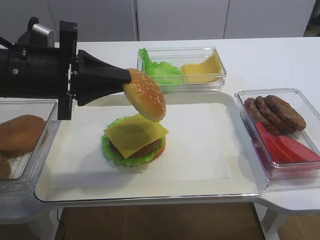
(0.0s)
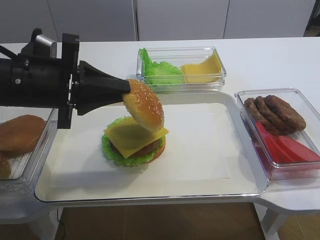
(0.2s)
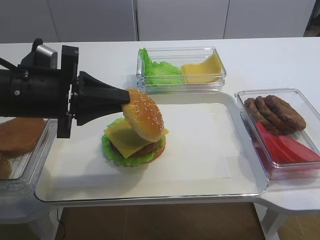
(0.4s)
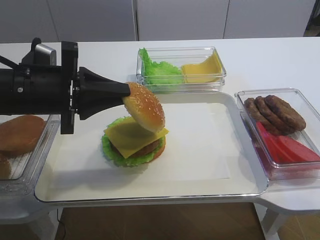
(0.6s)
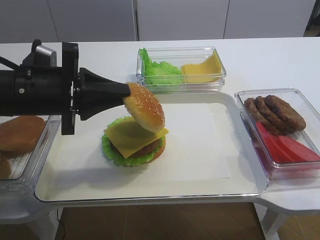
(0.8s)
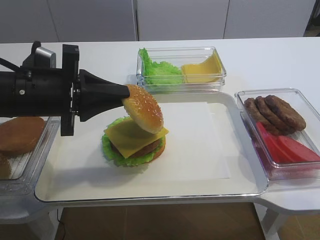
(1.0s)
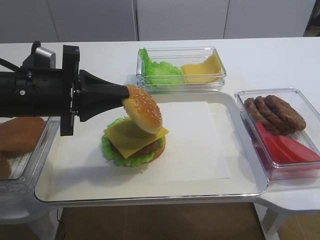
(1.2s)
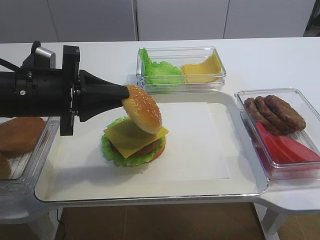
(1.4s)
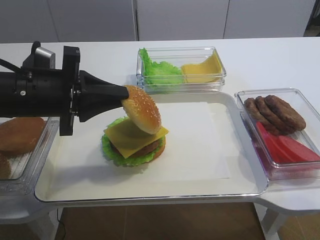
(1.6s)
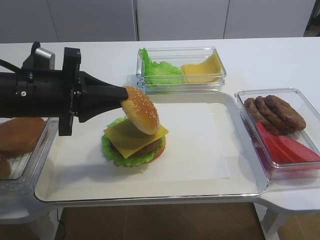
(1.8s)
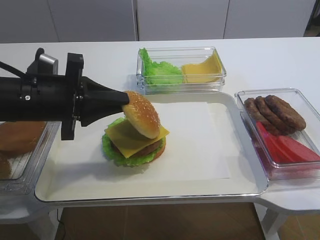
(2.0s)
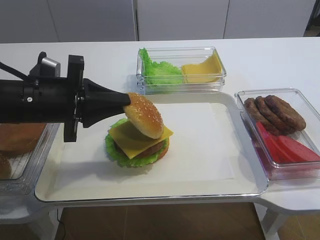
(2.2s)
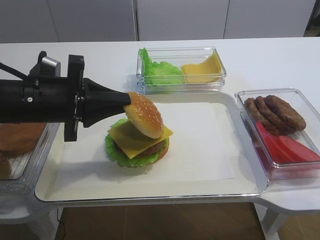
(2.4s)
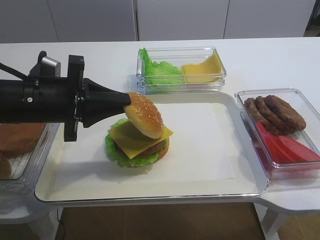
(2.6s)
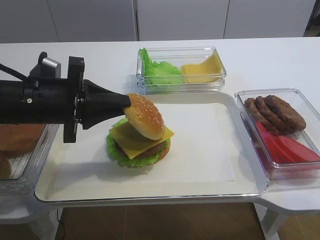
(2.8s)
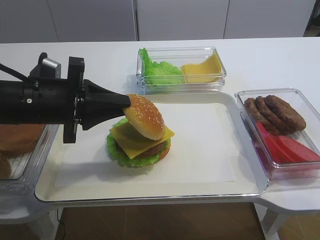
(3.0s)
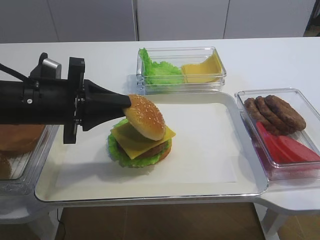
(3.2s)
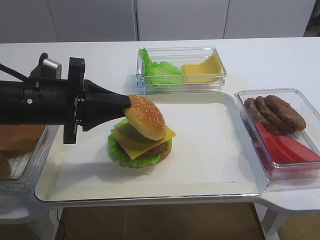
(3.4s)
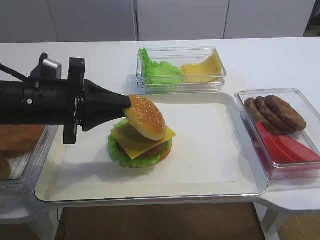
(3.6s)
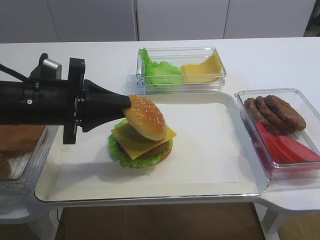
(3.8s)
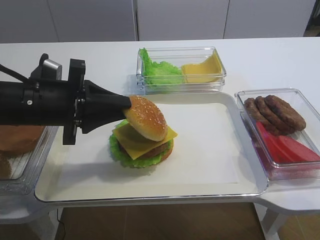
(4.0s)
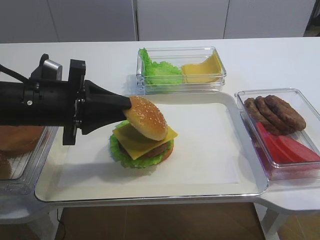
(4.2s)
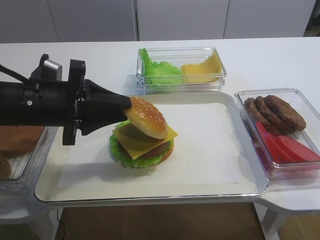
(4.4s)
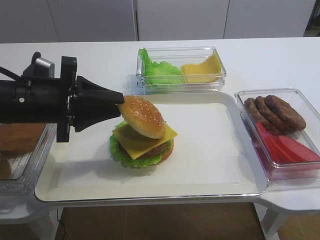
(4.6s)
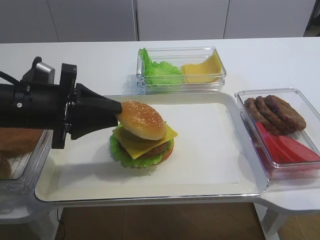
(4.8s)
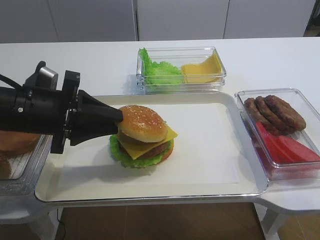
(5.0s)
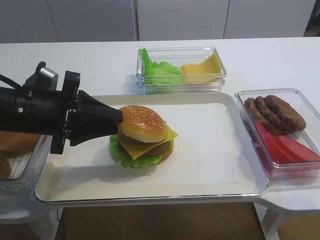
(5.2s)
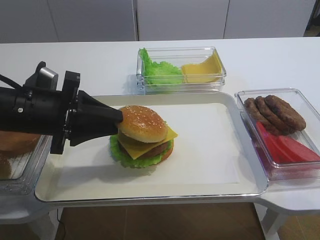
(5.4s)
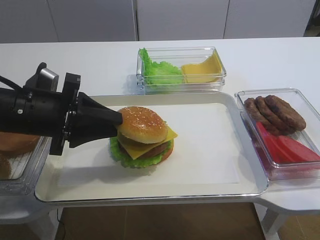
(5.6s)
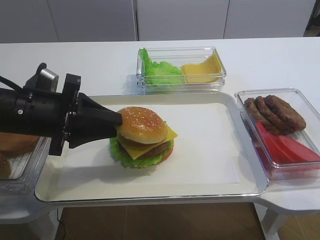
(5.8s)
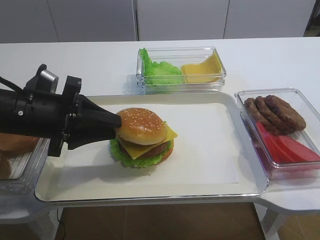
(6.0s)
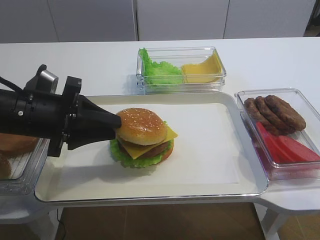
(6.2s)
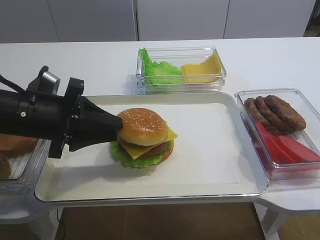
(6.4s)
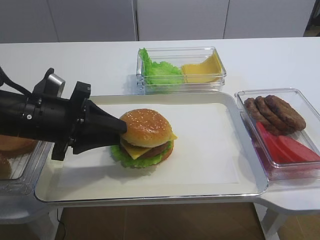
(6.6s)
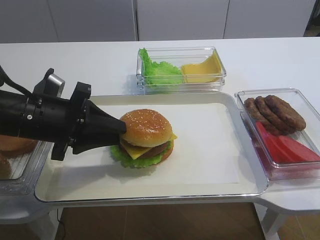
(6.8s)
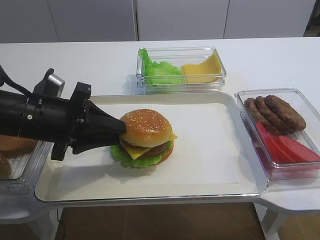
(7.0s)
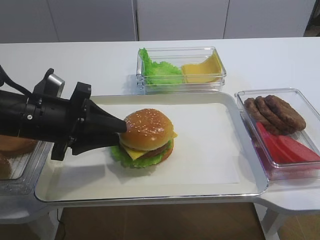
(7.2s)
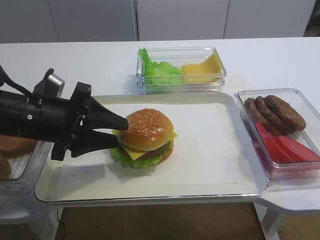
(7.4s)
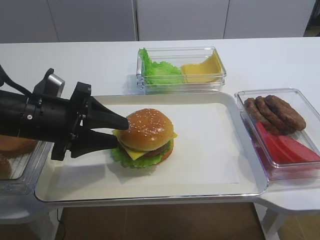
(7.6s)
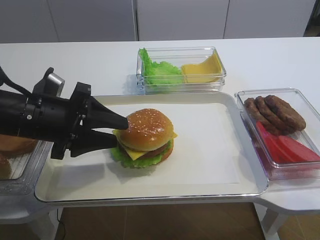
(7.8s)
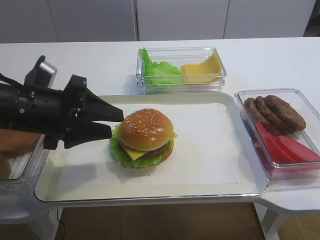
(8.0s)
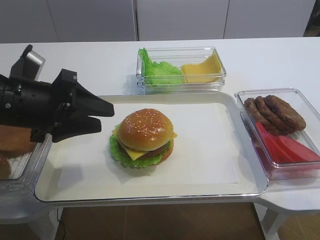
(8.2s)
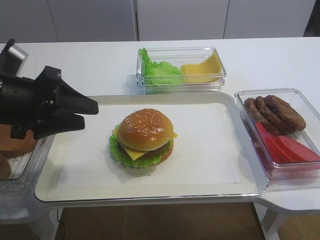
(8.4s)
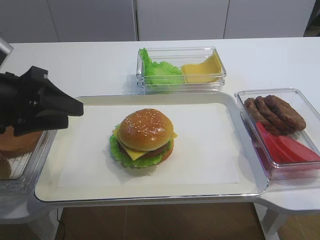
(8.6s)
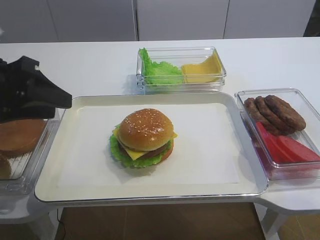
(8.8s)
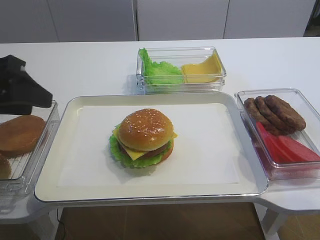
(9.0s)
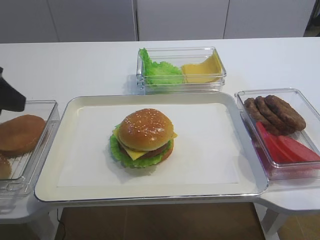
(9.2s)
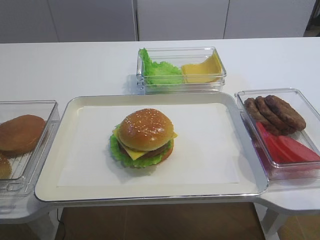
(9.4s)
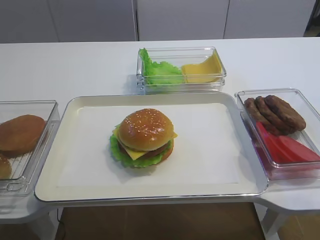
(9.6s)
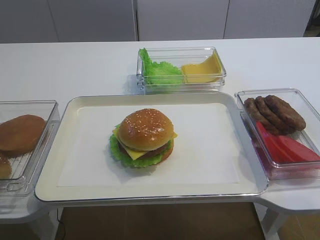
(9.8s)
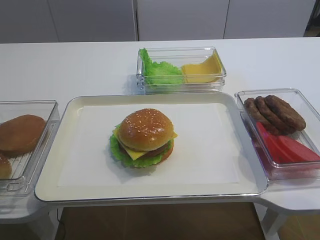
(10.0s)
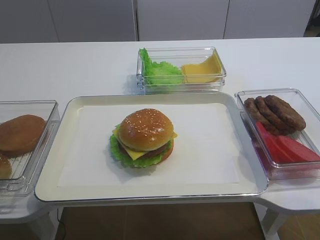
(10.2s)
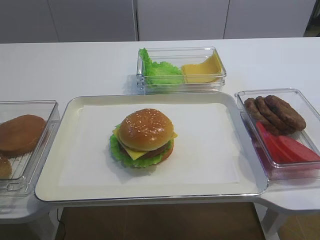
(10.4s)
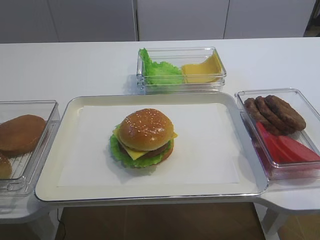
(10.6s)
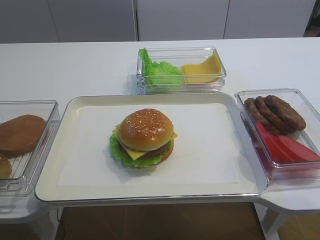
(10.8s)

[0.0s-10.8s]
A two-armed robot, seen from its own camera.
Step, 0.0s to 7.6s: Place the hamburger lid on the cheese slice with the left gripper.
0.0s to 3.0s: The grippers make only small movements.
3.0s to 4.6s: The left gripper opens.
4.6s to 6.2s: There are only small adjustments of the grippers.
6.2s to 7.8s: The left gripper opens.
7.8s to 9.2s: The left gripper heads upward, to the left and backward, covering about 15 cm.
9.2s to 10.8s: The left gripper is displaced backward by some 20 cm.

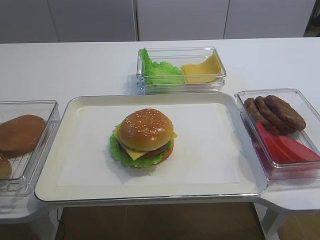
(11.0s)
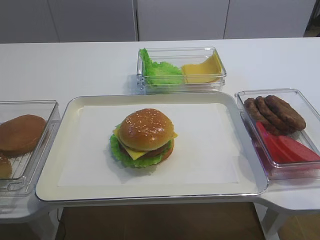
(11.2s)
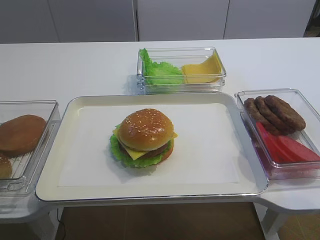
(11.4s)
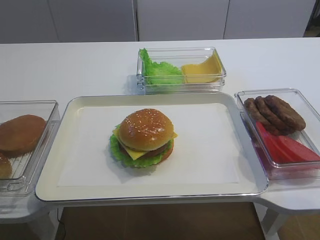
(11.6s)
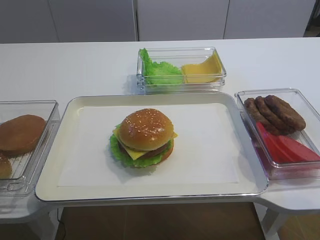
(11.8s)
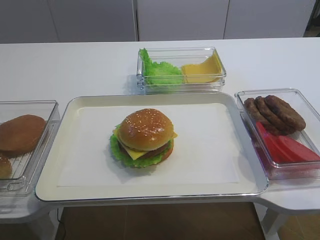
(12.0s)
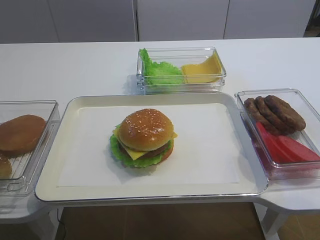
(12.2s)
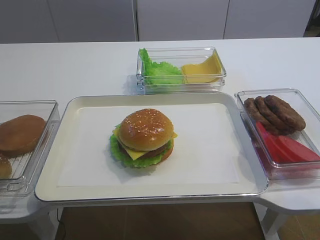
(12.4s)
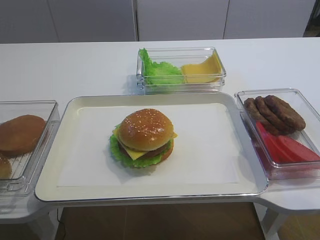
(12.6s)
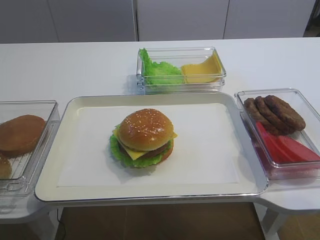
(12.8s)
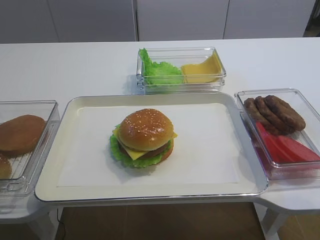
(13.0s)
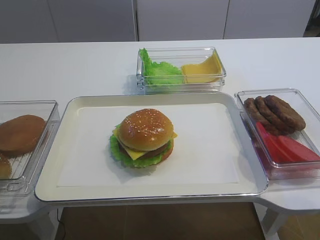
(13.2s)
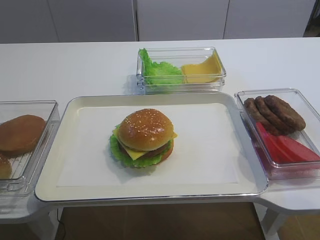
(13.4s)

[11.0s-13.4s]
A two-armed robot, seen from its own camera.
12.2s to 13.4s: Both grippers stay put.

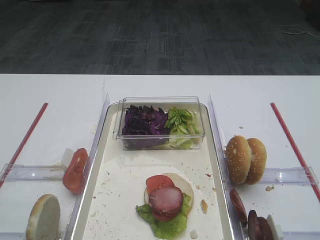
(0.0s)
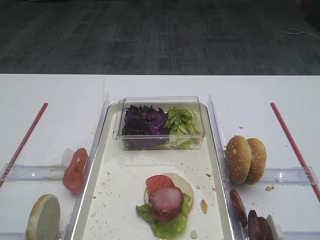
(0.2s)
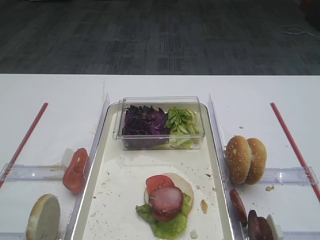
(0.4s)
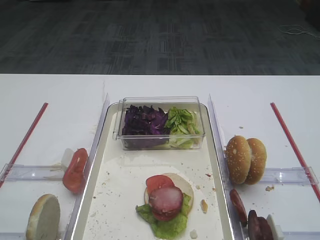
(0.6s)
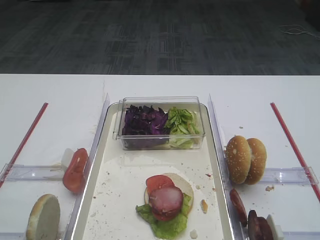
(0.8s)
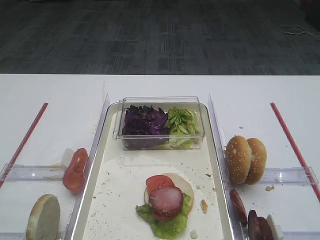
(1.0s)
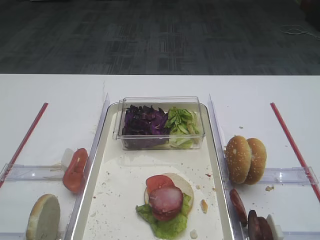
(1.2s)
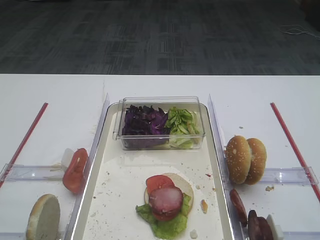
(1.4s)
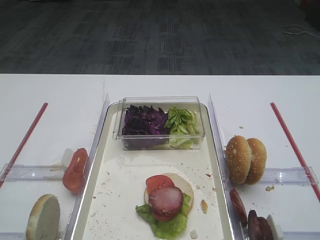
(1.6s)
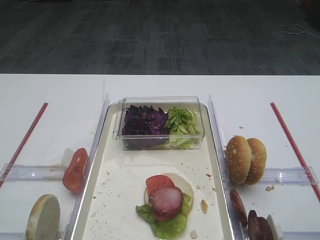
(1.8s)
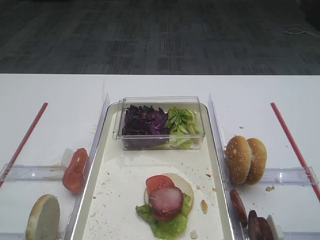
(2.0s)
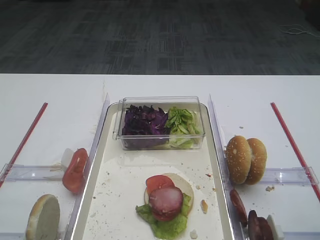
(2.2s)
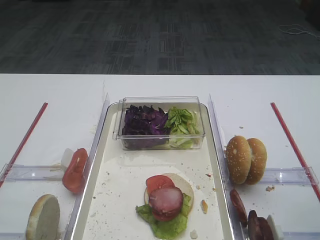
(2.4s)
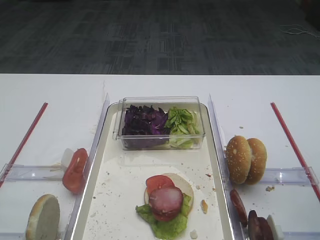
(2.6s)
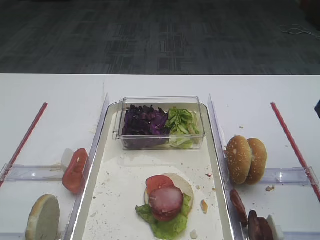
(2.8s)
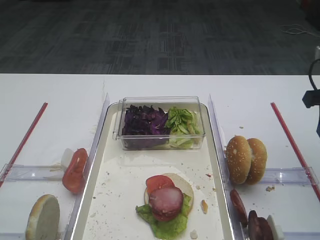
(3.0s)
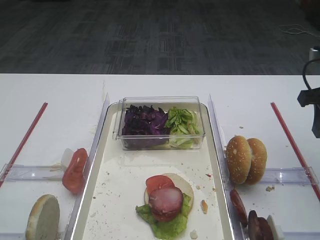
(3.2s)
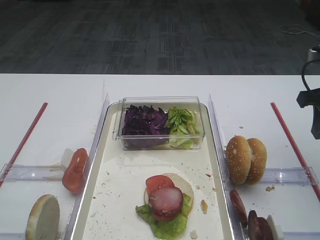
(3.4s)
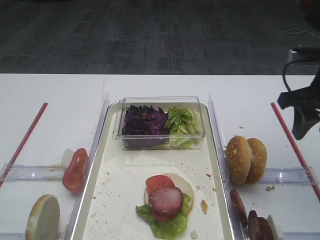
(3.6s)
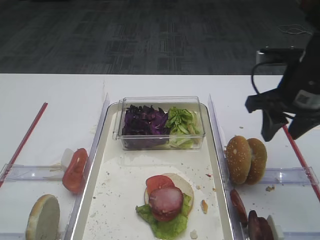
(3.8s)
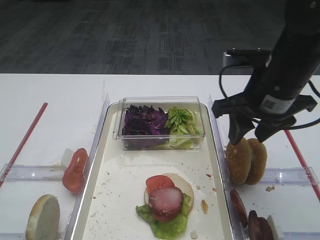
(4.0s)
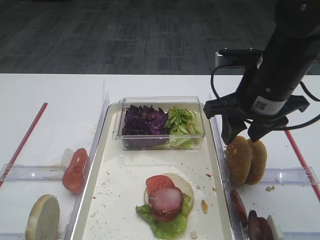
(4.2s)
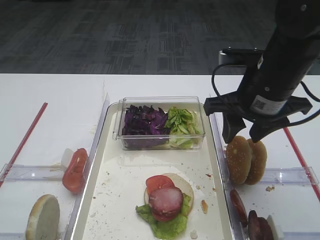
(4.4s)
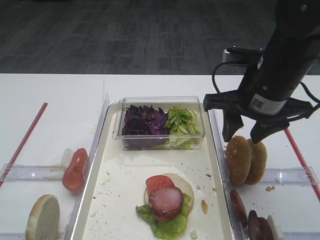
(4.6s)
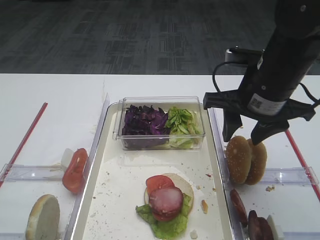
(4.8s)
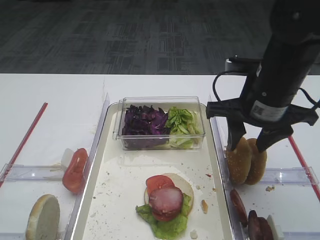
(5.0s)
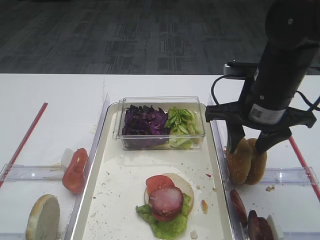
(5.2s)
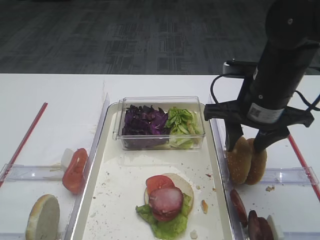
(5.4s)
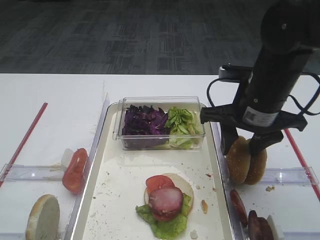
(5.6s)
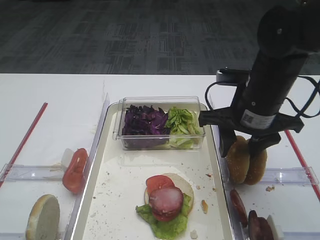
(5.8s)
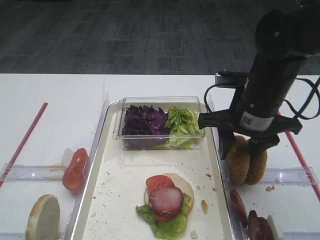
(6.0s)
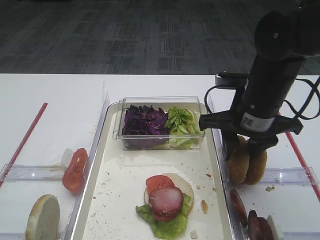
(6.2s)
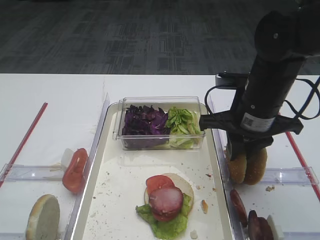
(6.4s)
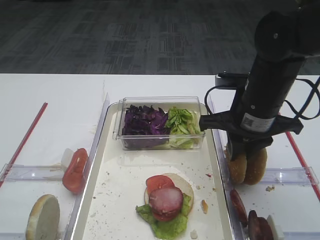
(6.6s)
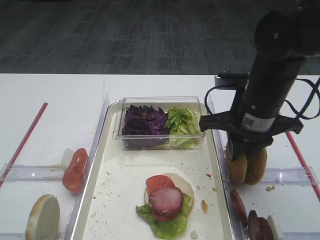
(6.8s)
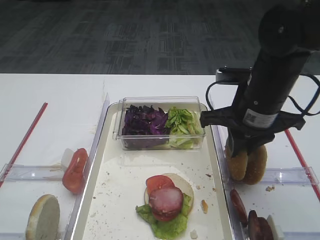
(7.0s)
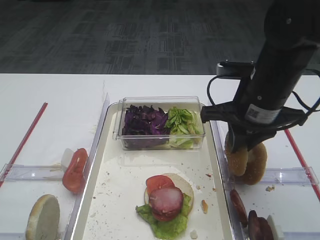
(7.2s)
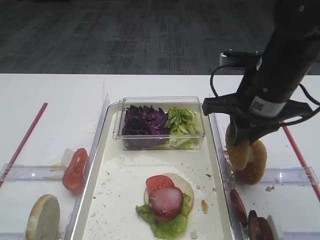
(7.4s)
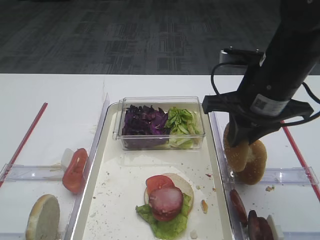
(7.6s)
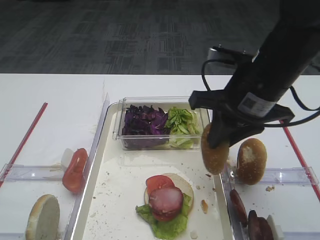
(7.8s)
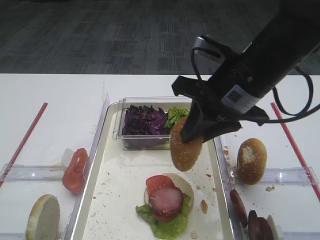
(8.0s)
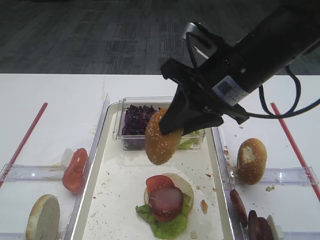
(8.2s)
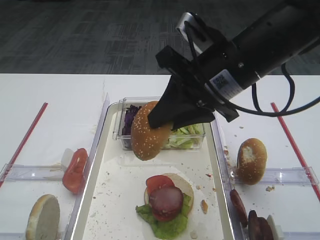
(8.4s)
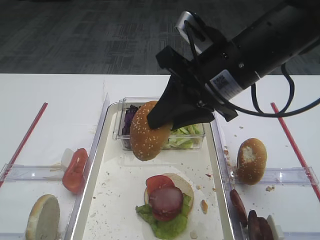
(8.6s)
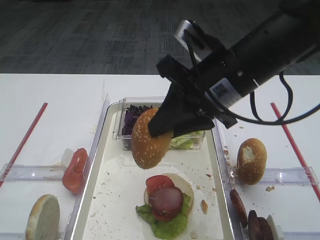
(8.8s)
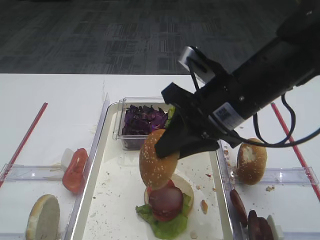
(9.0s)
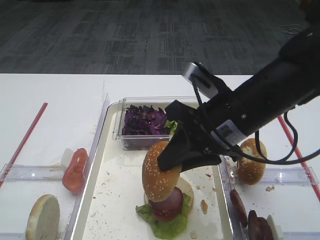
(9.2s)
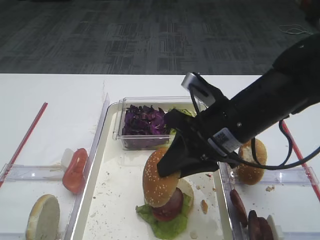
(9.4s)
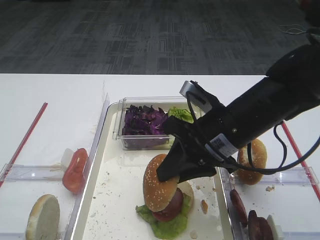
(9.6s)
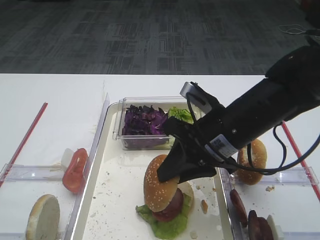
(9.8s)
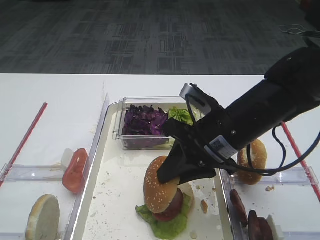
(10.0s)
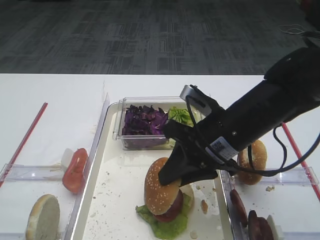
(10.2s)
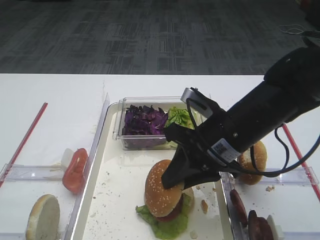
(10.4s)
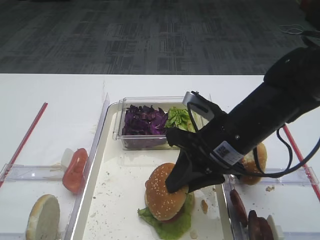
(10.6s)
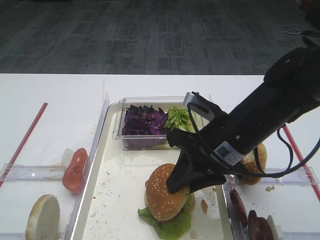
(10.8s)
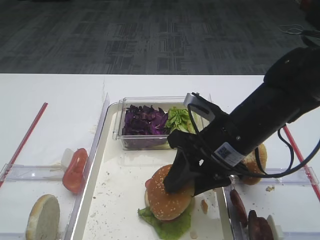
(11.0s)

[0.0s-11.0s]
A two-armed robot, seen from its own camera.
Step, 0.0s to 7.4s: Pick up the hamburger lid with the right gripper.
1.6s to 3.2s: The right gripper heads forward, covering some 25 cm.
3.2s to 4.8s: The right gripper goes approximately 15 cm to the left.
4.8s to 6.2s: The grippers stay close to where they were, moving slightly.
6.2s to 7.8s: The right gripper moves roughly 5 cm, and closes its fingers.
7.8s to 9.4s: The right gripper changes place by some 5 cm.
9.4s to 11.0s: The grippers move only a little.
